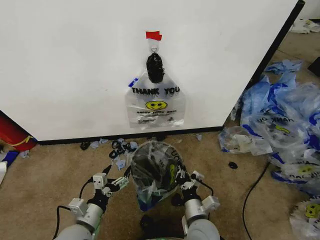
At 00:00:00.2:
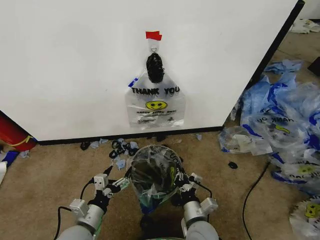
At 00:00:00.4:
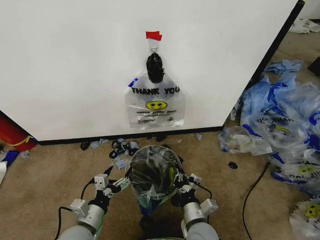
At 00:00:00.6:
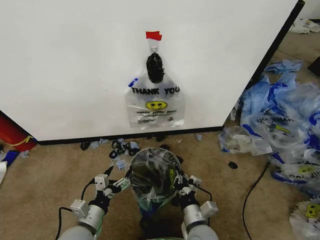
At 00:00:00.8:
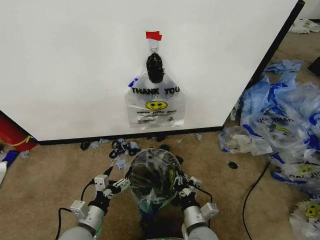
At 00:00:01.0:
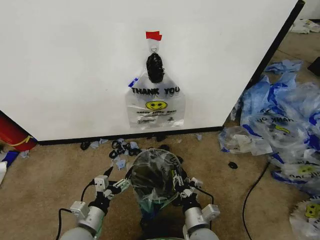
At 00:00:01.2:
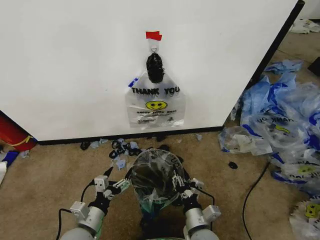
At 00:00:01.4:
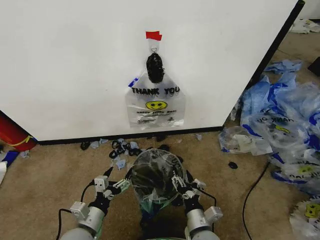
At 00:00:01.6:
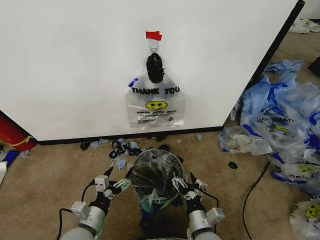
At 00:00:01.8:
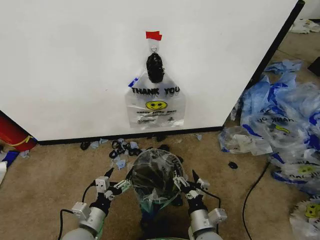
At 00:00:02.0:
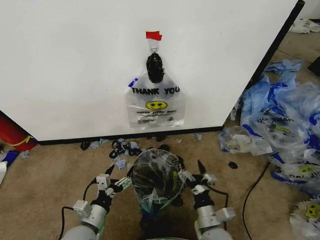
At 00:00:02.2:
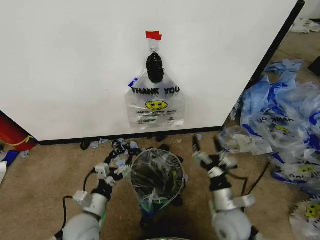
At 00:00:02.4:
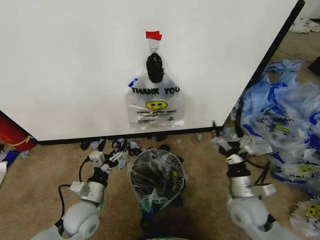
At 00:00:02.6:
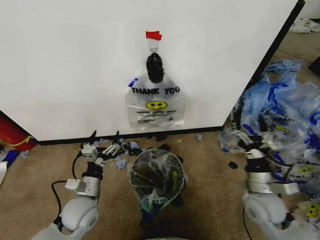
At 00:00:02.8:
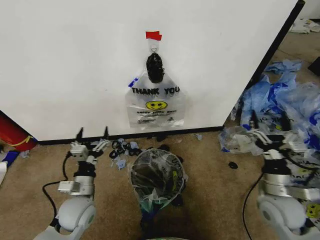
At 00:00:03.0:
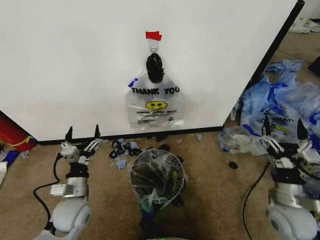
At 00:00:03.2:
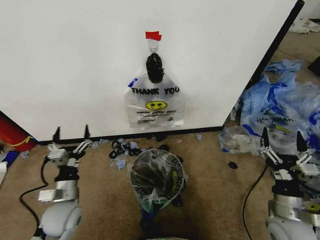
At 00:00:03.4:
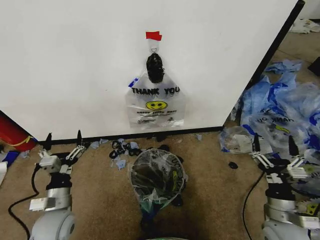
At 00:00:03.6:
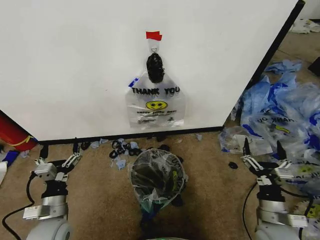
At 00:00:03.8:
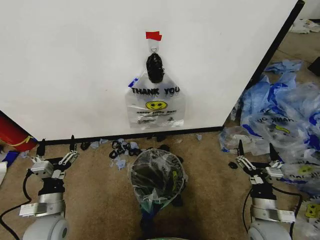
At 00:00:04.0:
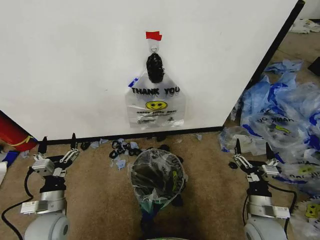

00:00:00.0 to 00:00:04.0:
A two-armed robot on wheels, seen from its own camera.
Task of the whole recording: Pick up the garbage bag from the wall and place it over the trash bin.
00:00:00.0 to 00:00:01.4: The right gripper opens.
00:00:01.4 to 00:00:02.6: The left gripper shifts about 10 cm forward. Meanwhile the right gripper travels to the right, forward and upward by about 20 cm.
00:00:02.6 to 00:00:04.0: The left gripper shifts roughly 10 cm to the left, while the right gripper shifts some 10 cm downward and backward.
